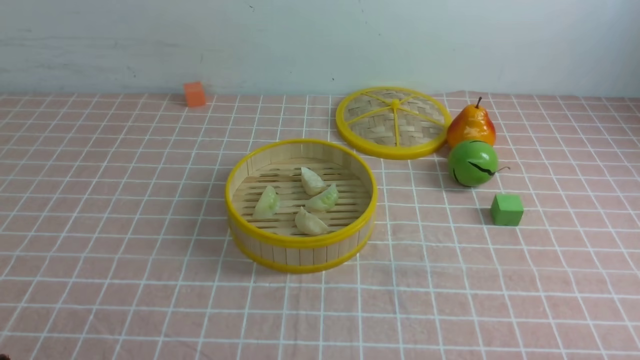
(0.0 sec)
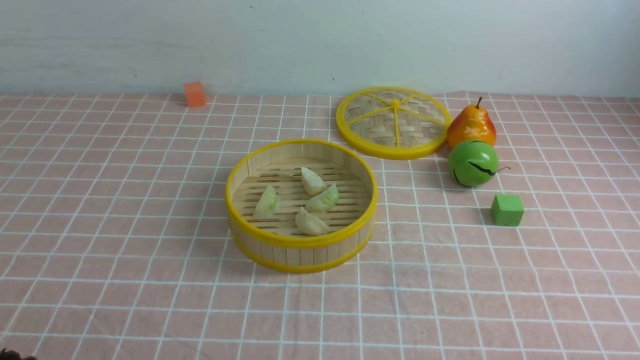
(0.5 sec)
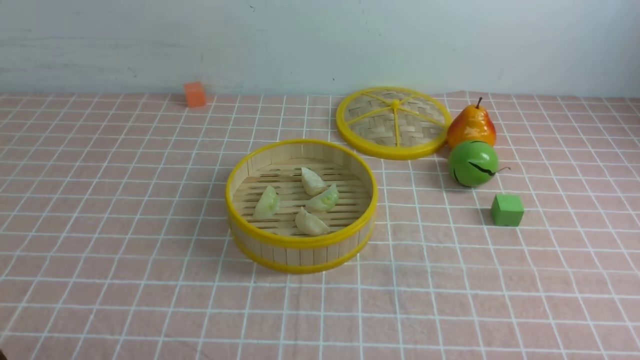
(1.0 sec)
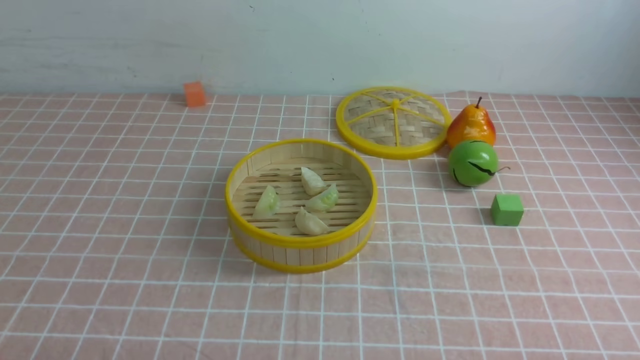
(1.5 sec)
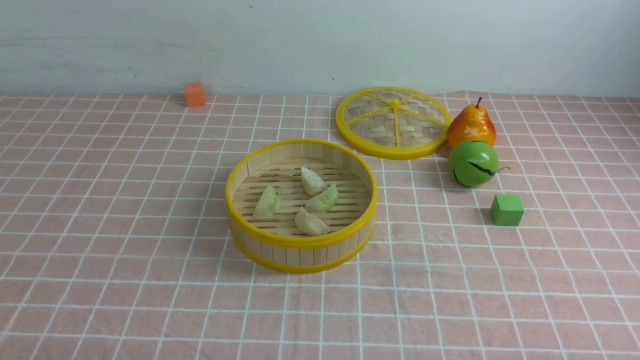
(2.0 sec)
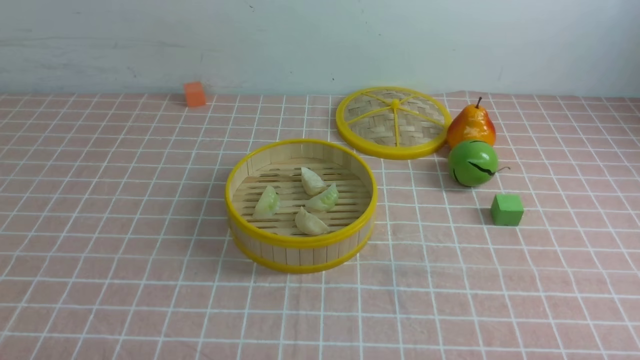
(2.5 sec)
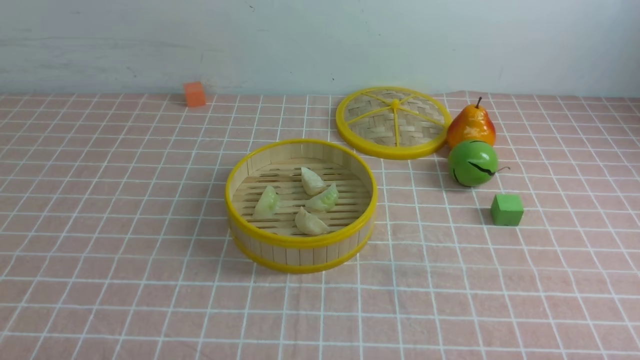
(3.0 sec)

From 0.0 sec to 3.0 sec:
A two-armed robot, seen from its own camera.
Task of the whole recording: put the dumplings into the steamer on the table with the pink tablecloth.
From 1.5 sec to 3.0 sec: The two grippers keep their place.
